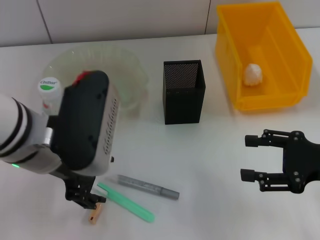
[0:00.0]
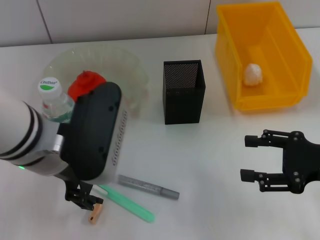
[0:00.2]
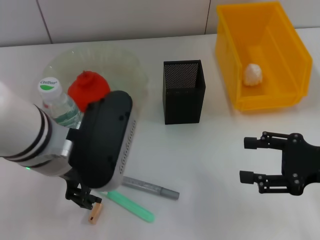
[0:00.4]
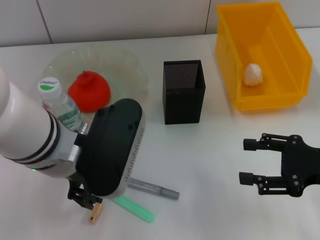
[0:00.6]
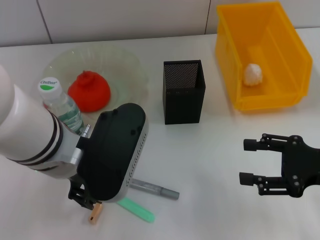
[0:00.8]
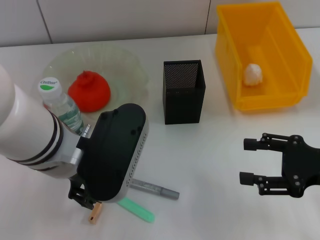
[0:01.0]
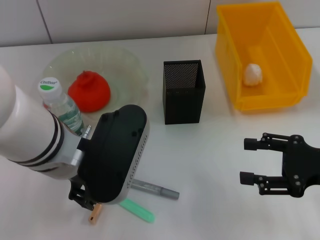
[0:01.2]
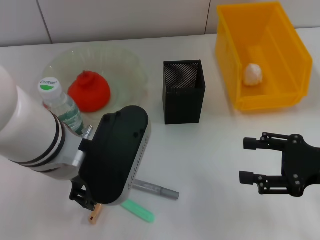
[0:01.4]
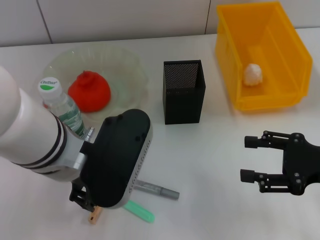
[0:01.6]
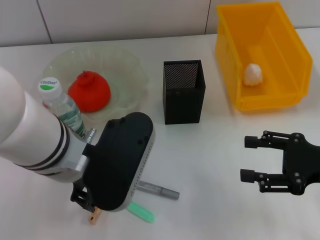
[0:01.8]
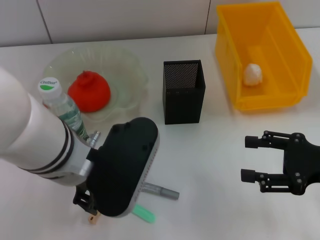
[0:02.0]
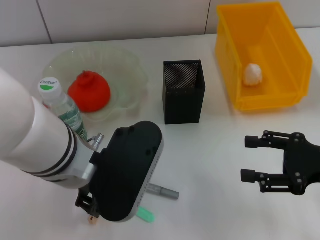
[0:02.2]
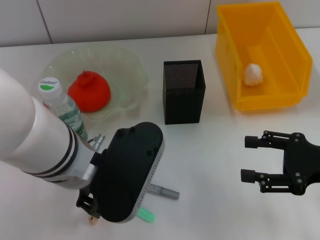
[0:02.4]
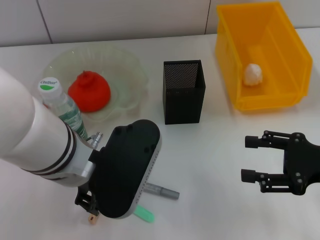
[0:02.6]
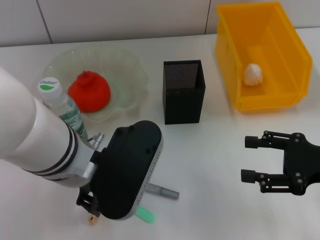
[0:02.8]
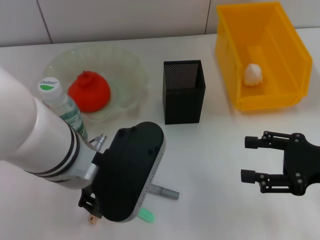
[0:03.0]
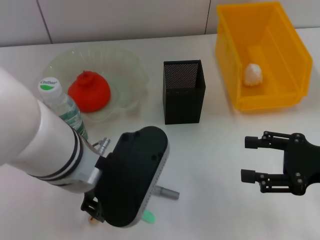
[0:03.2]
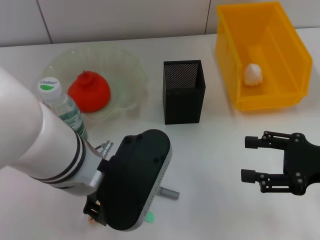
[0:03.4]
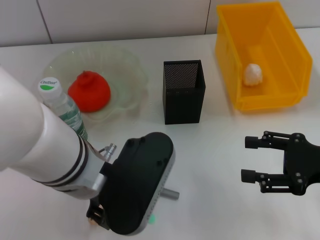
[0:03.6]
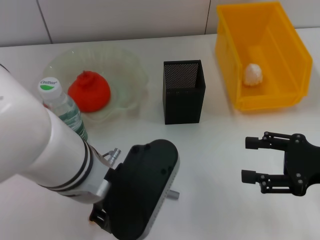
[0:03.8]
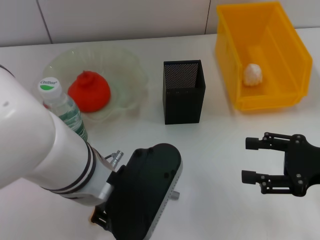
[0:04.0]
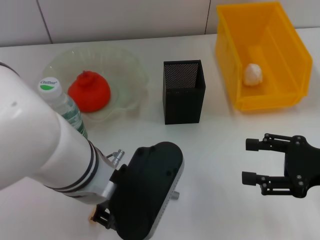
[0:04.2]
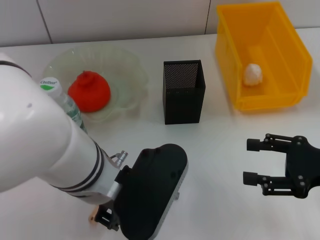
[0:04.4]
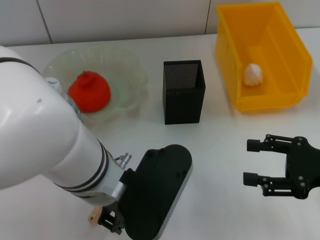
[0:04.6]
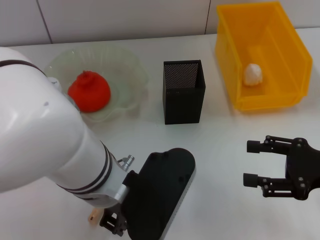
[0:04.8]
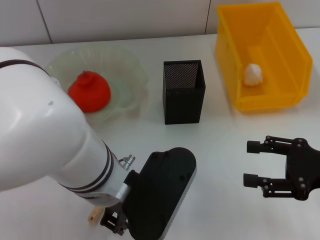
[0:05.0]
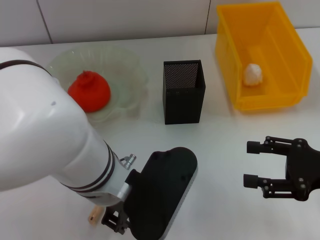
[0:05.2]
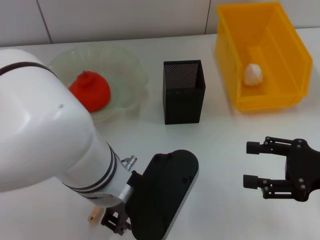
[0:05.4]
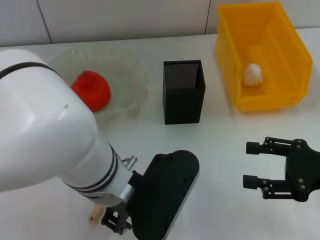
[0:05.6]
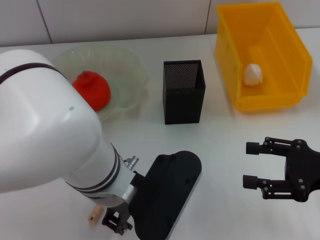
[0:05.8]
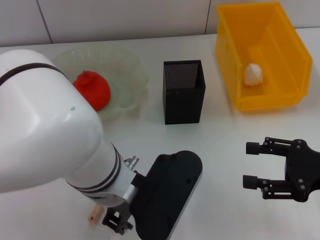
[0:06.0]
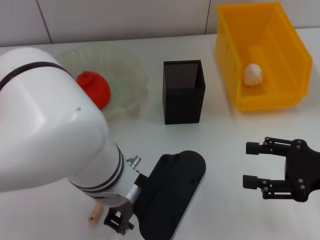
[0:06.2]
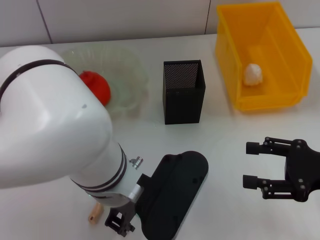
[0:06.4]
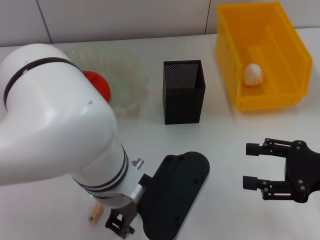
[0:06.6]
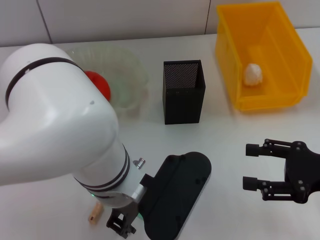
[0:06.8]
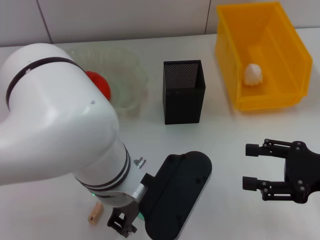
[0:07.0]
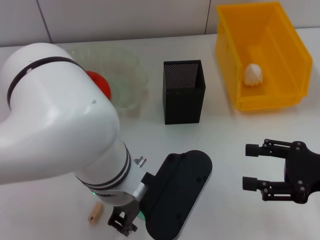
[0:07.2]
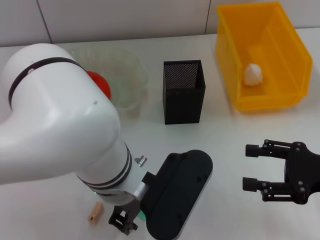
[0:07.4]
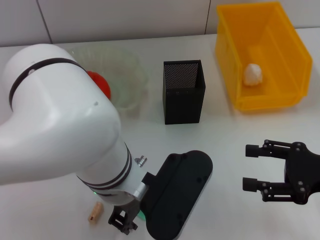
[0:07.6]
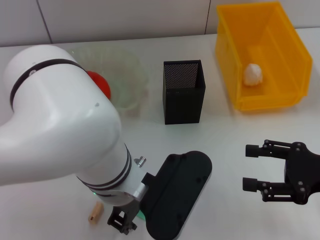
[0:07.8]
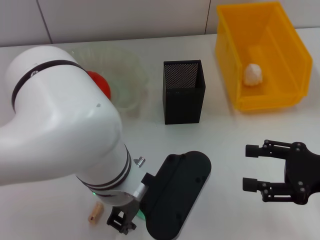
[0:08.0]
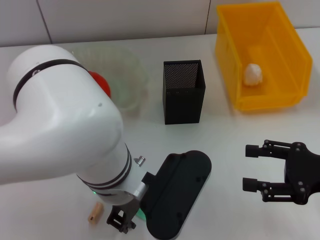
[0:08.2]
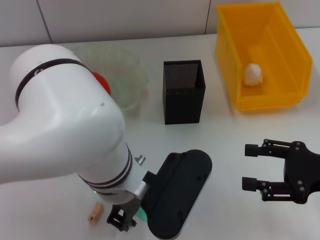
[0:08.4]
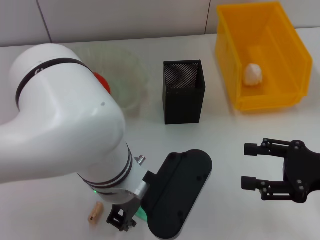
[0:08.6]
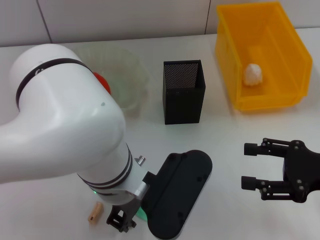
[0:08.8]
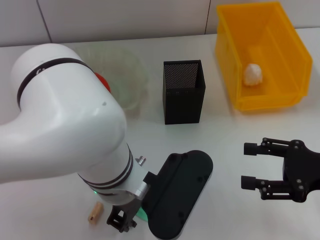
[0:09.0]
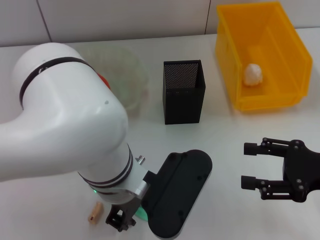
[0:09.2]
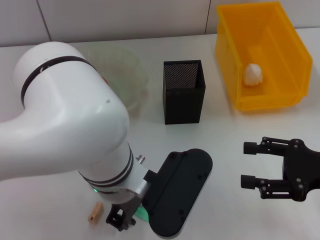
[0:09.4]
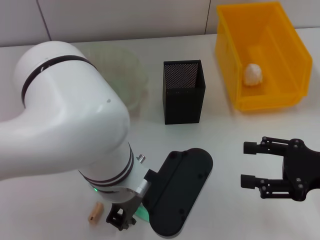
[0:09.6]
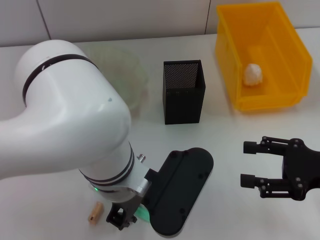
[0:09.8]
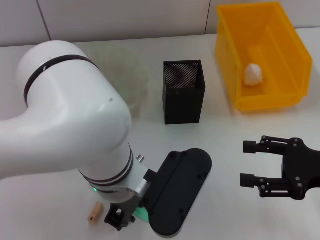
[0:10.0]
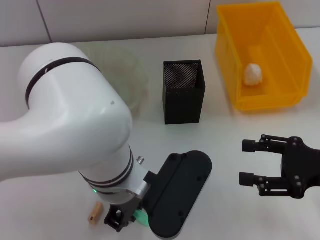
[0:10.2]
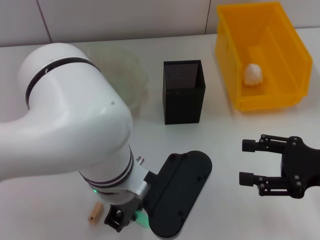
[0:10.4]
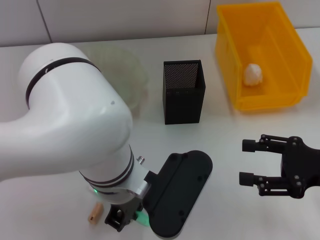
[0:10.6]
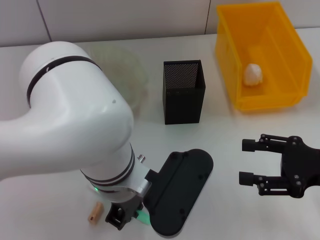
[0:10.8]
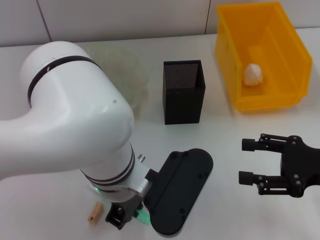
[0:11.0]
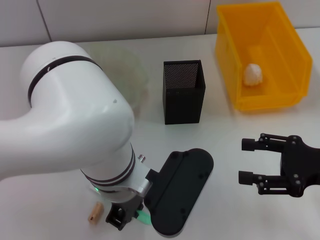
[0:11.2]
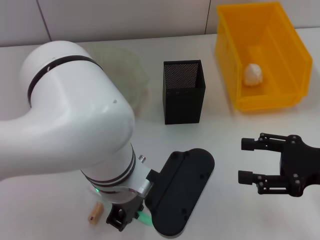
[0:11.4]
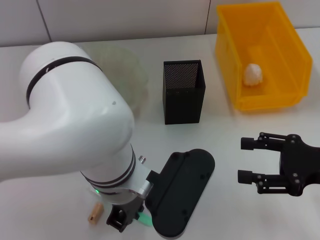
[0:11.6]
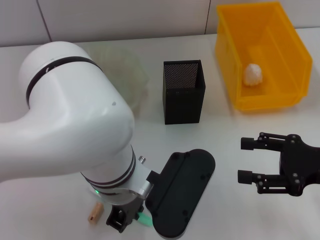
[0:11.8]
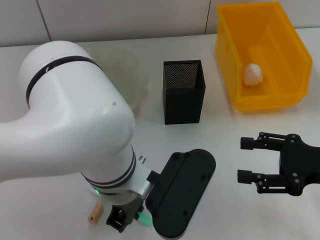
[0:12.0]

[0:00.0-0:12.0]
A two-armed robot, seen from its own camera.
Step, 0:00.0 to 0:10.4: Grab the blue utility knife with the left hand.
0:00.0 to 0:01.6: The grippers move only a little.
0:01.6 to 0:03.0: Neither gripper changes place.
0:03.0 to 0:06.0: The grippers move only a little.
0:06.0 to 0:09.0: The two grippers keep their place.
0:09.0 to 0:12.0: Neither gripper changes place.

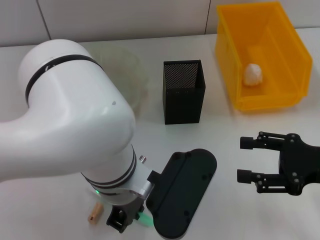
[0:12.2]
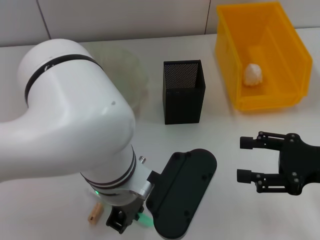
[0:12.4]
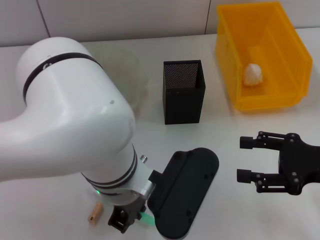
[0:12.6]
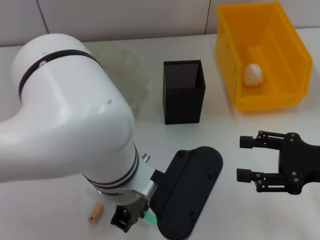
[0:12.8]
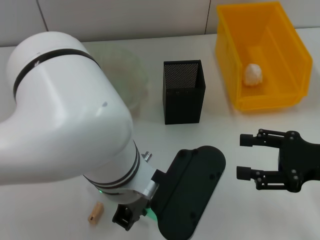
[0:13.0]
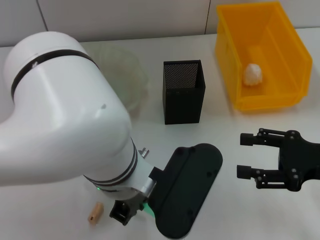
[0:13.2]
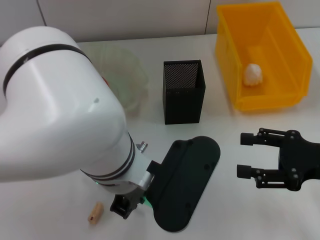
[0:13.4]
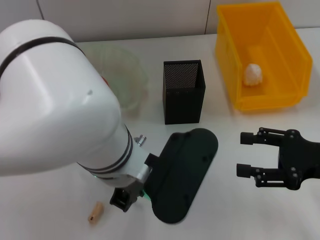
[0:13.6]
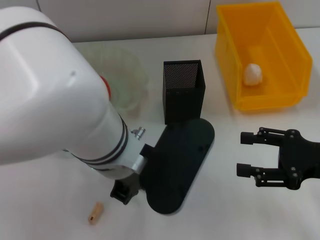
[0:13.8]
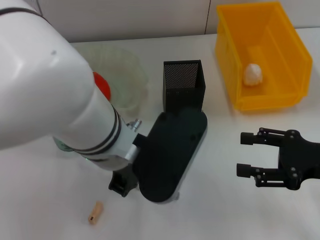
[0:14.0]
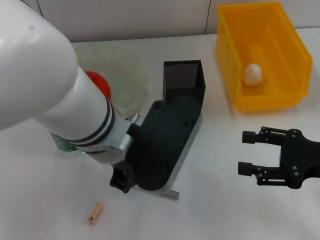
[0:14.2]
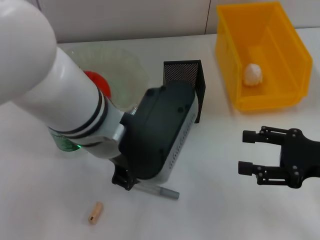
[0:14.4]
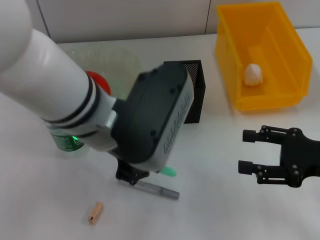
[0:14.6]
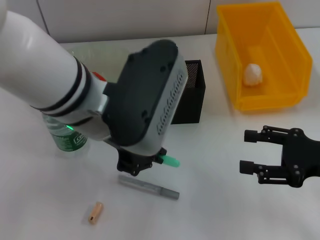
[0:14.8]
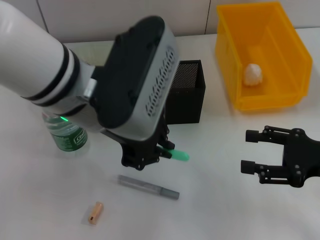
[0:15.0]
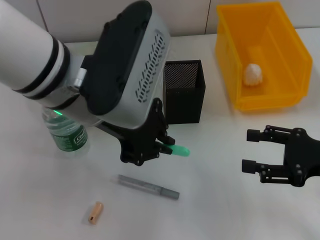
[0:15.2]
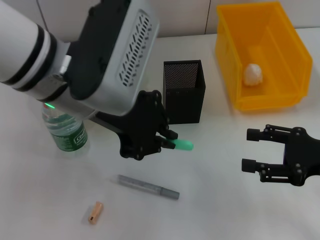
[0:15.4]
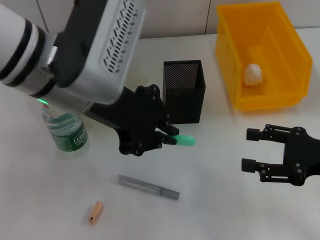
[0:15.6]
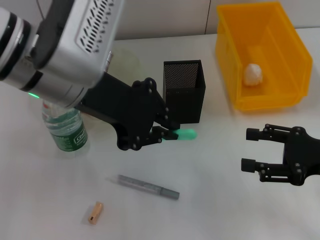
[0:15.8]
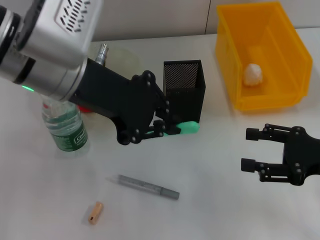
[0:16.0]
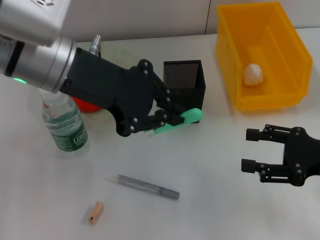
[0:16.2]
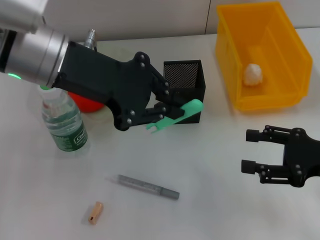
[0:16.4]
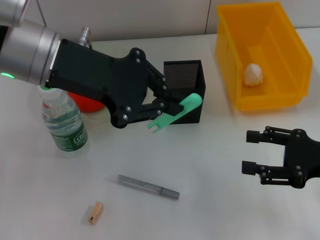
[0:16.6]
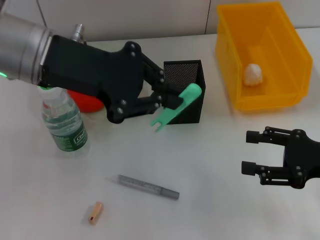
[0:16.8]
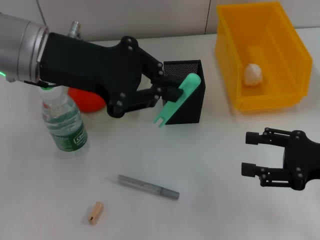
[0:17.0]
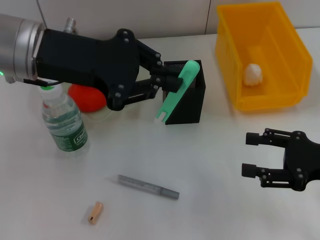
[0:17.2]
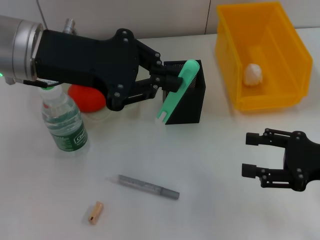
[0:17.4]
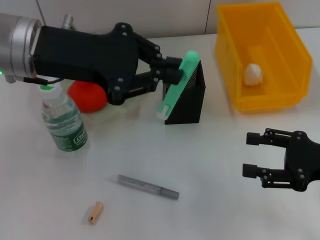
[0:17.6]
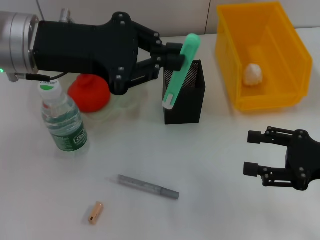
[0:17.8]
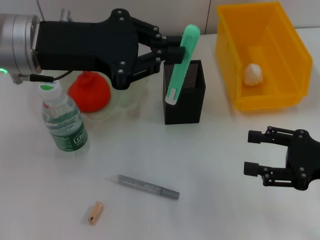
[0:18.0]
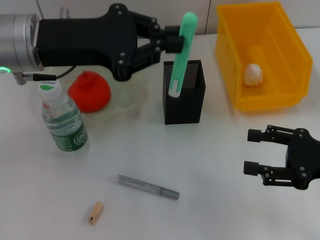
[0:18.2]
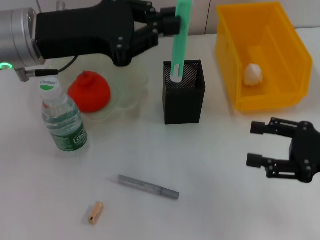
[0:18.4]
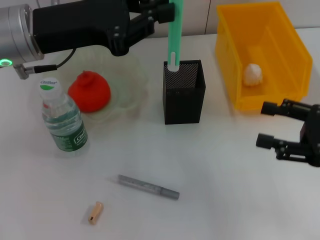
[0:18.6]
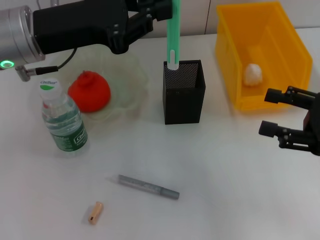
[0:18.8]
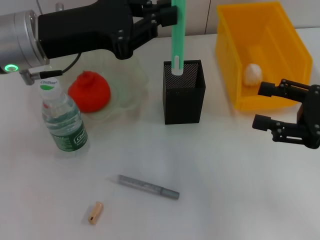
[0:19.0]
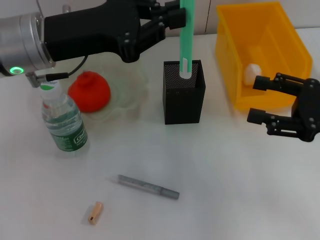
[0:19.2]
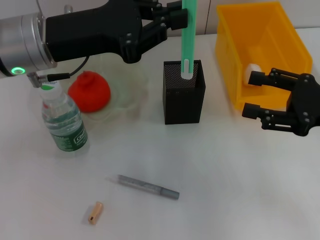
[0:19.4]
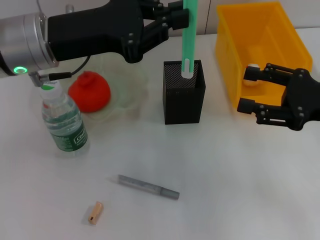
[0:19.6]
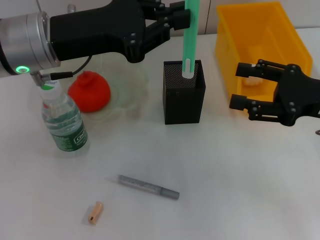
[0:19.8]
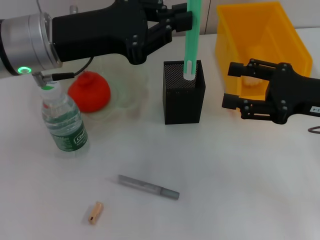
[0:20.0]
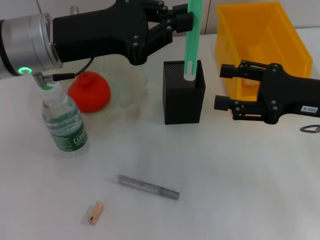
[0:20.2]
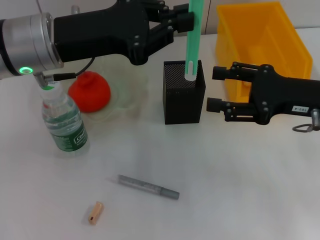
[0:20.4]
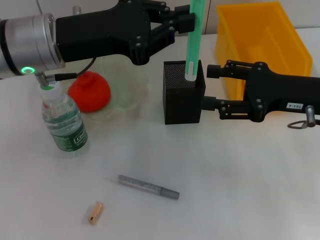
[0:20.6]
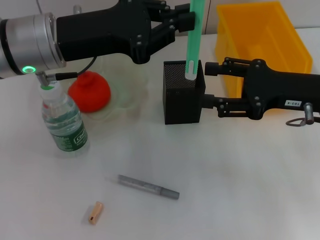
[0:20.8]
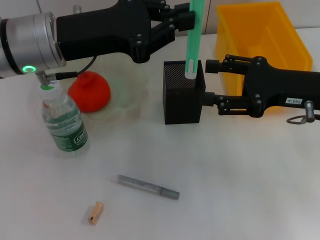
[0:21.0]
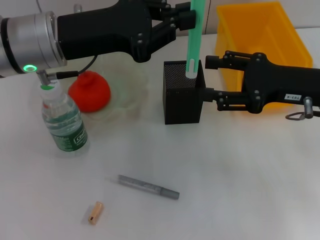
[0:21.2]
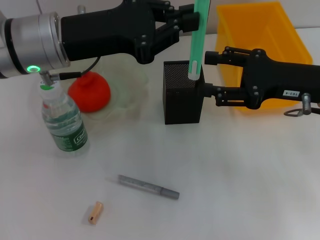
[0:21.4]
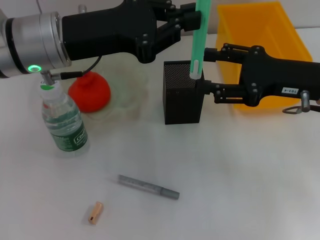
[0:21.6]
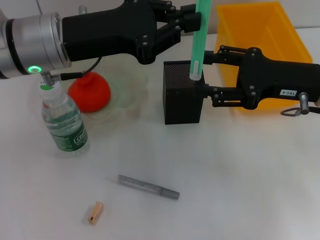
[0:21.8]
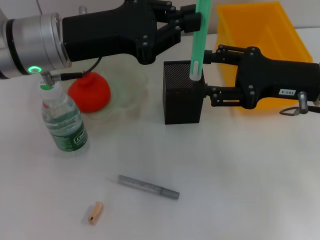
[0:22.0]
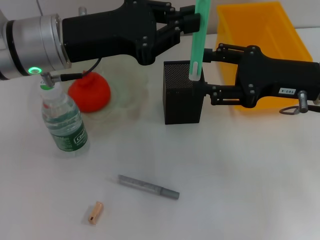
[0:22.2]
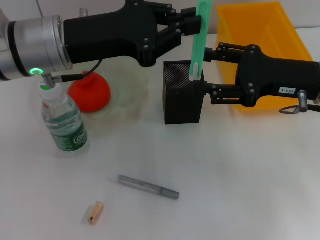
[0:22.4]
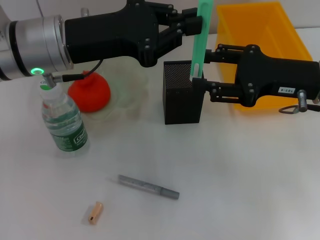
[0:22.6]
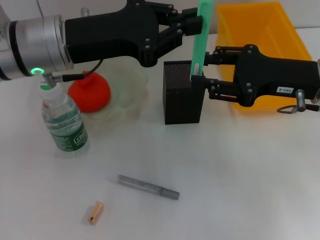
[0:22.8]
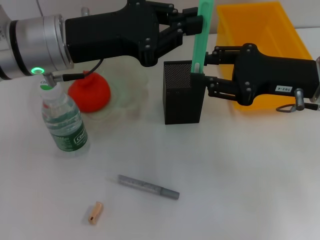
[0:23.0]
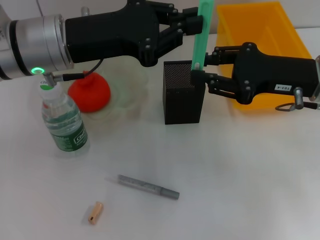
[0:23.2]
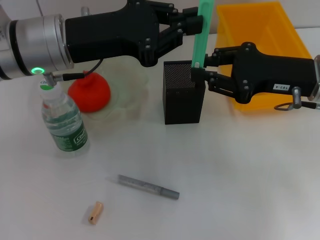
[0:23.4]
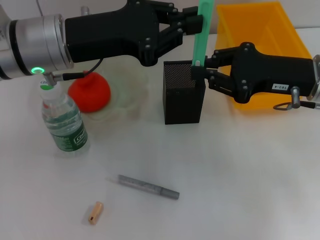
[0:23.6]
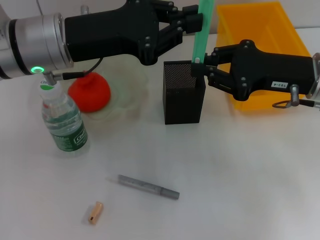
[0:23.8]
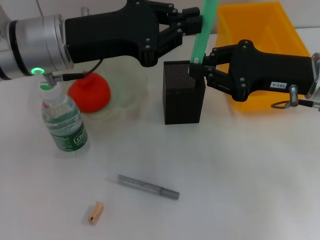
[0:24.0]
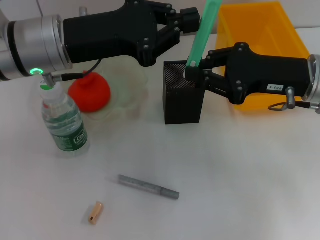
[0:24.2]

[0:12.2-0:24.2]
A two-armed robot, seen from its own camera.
0:13.8 to 0:15.2: The left gripper is displaced upward by some 5 cm.
0:15.2 to 0:16.6: The left gripper heads to the left, covering approximately 5 cm.
0:18.2 to 0:19.8: The right gripper is displaced forward by approximately 5 cm.
0:19.8 to 0:21.2: The grippers make only small movements.
0:21.2 to 0:22.6: The two grippers keep their place.
0:22.6 to 0:24.2: The right gripper closes up.
